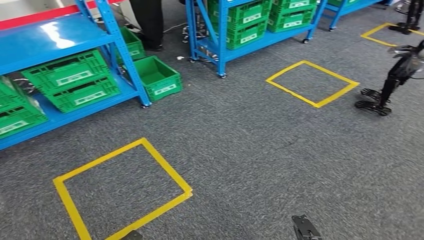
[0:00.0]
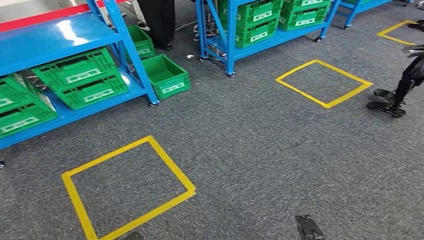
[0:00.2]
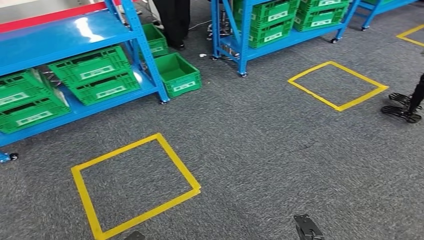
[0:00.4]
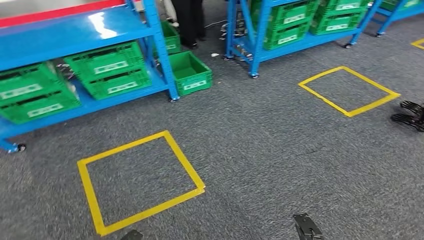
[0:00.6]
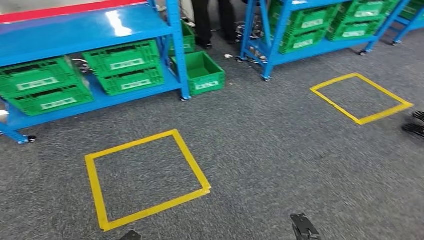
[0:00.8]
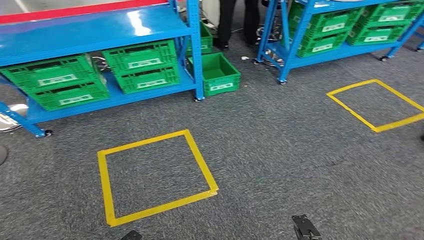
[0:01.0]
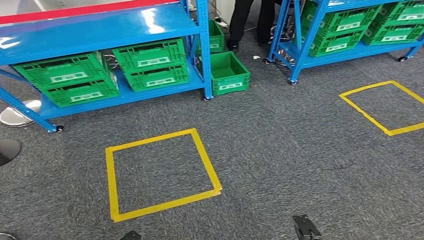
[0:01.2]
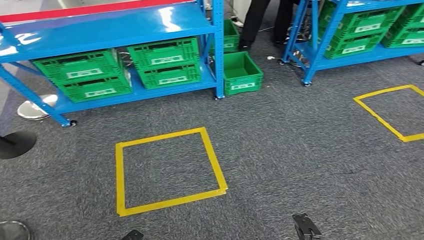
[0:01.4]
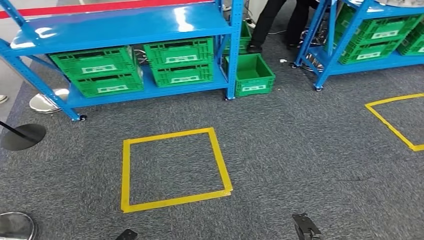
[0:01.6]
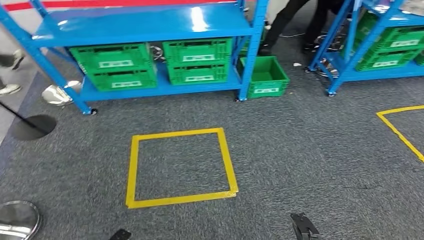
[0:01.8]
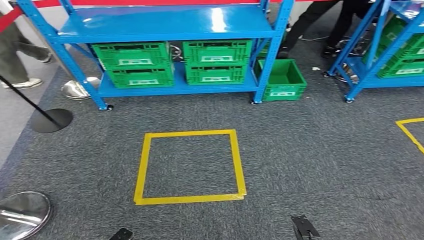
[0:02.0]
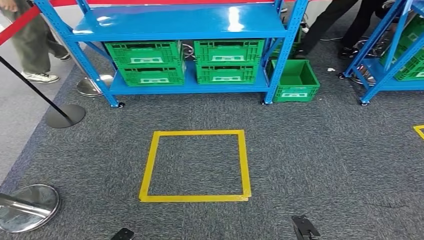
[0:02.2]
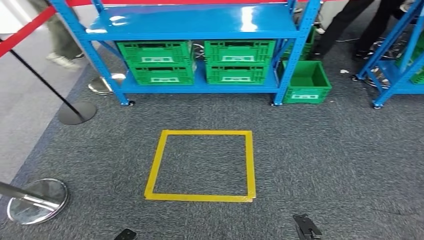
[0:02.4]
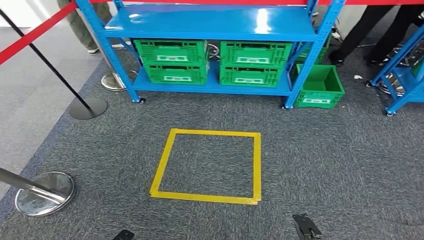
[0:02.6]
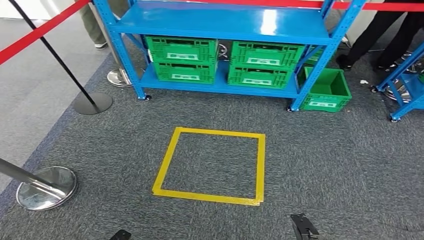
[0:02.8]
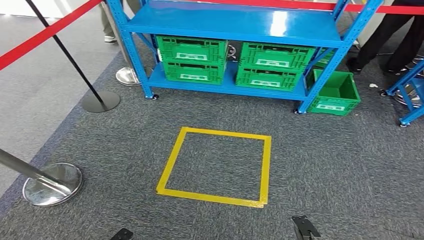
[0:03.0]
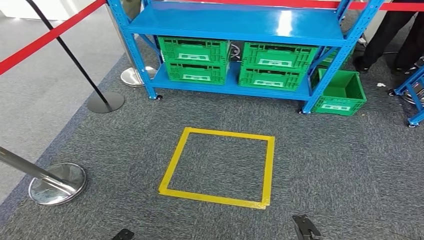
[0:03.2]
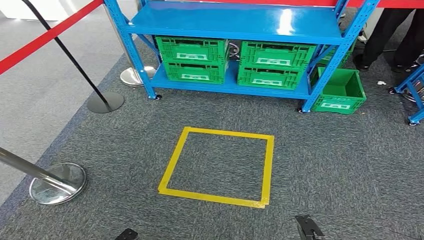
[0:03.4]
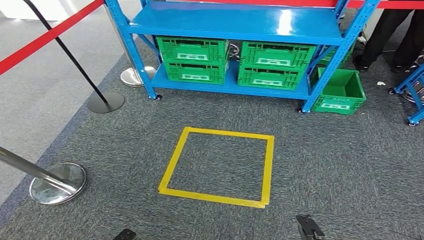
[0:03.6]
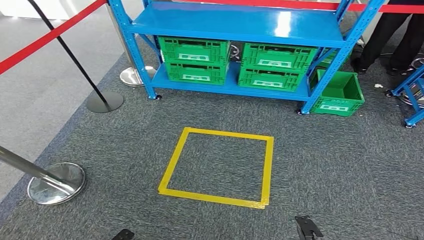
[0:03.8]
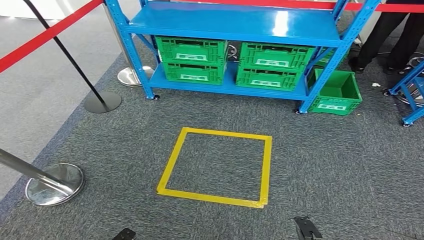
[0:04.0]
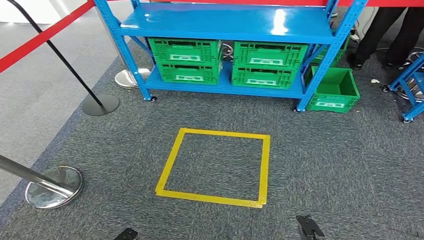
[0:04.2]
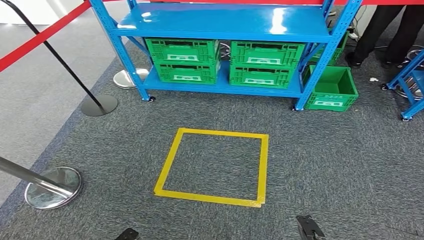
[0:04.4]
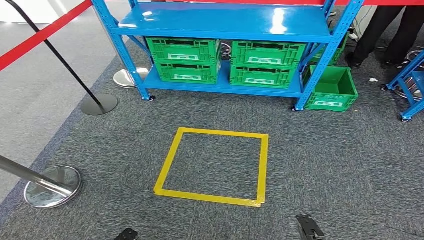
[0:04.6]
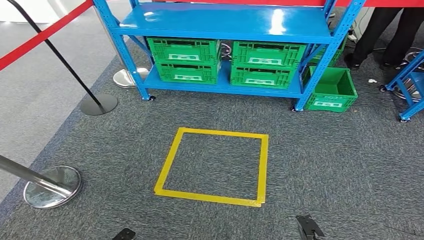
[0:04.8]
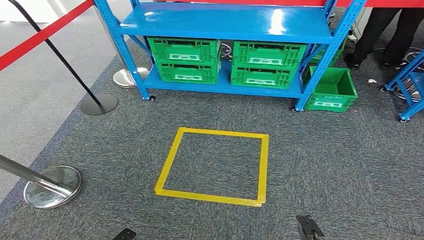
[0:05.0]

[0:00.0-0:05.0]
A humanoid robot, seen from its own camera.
Step, 0:00.0 to 0:05.0: Move to the initial position at the workbench.
0:03.4 to 0:05.0: Neither hand changes place.
